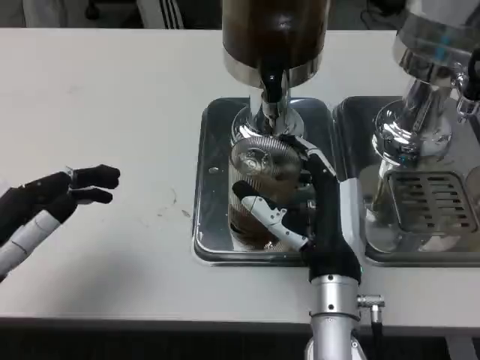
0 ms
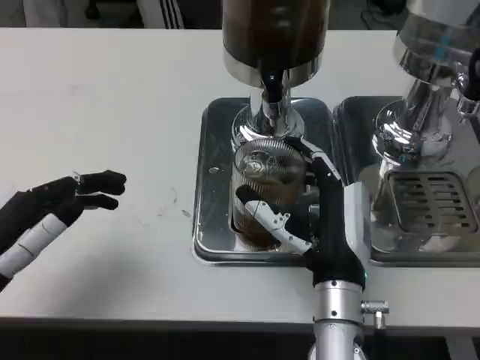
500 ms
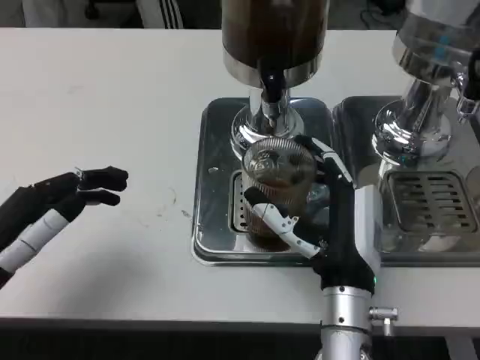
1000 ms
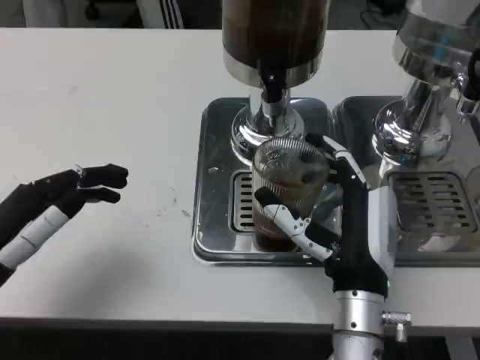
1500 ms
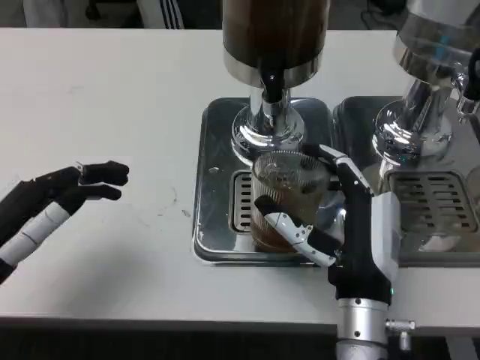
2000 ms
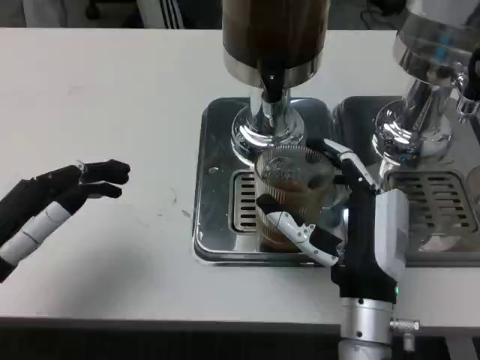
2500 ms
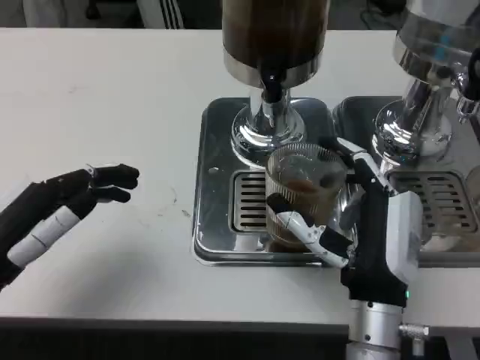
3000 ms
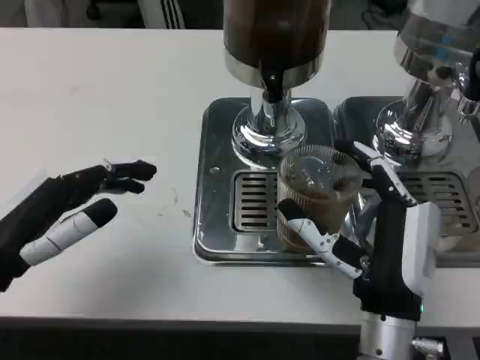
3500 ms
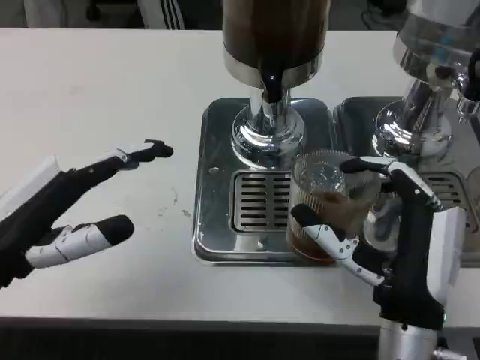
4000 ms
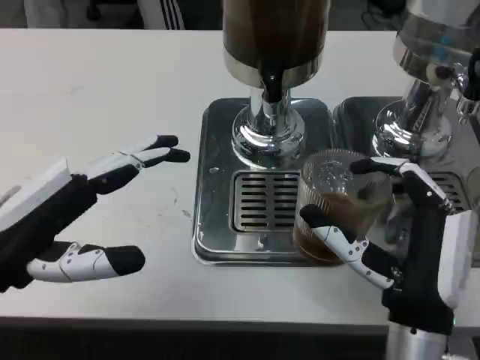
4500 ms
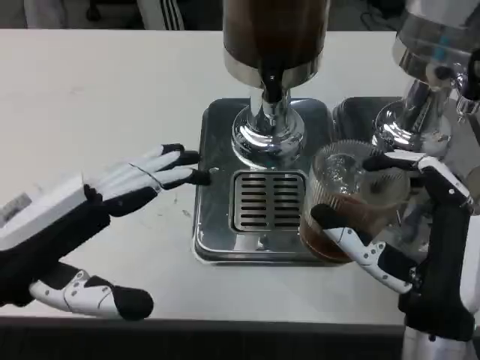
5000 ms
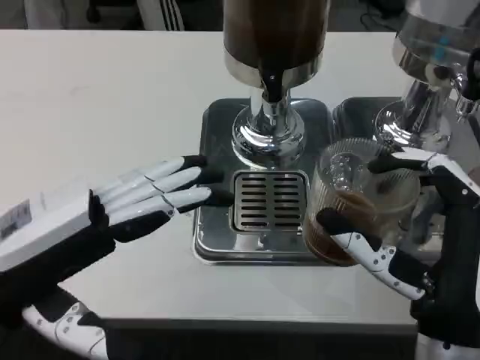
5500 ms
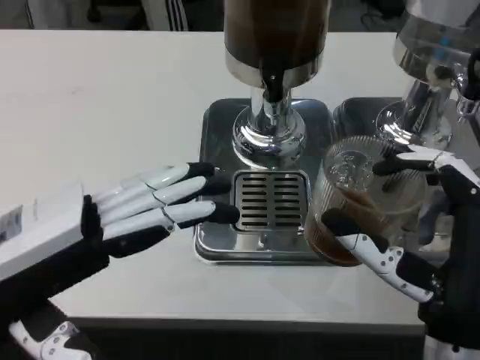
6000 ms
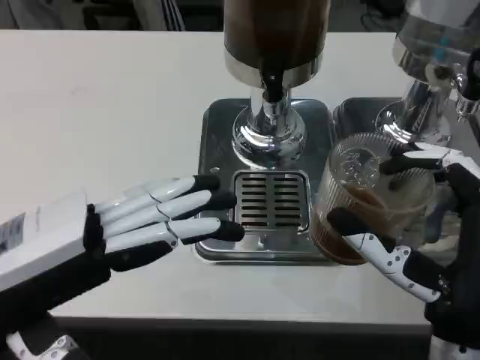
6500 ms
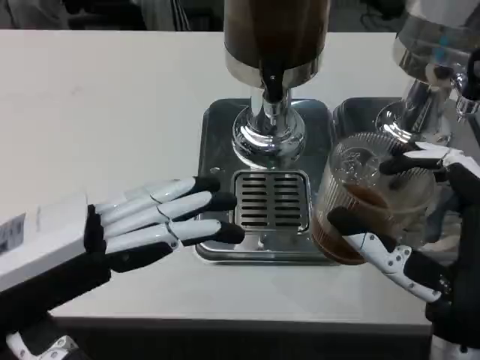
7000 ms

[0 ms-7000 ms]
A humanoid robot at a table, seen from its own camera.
Task of the whole recording: Grasp the cup under the faucet to collect the drink, then remove the cup.
0 ms to 2000 ms: There are only small adjustments of the hands.

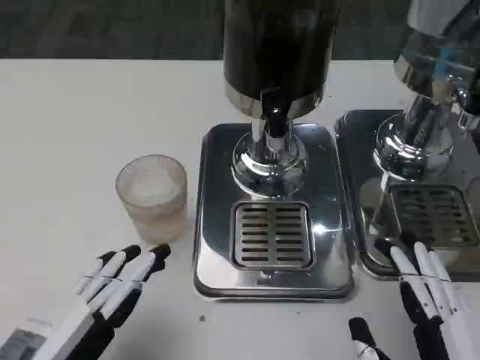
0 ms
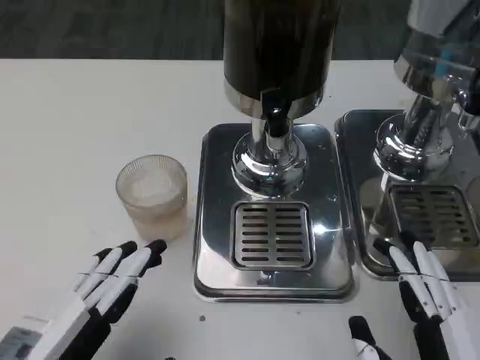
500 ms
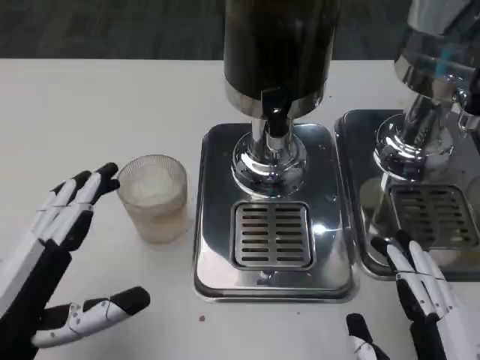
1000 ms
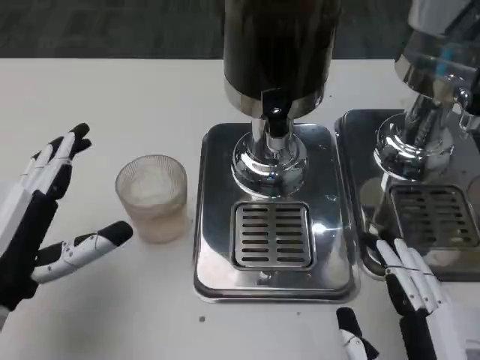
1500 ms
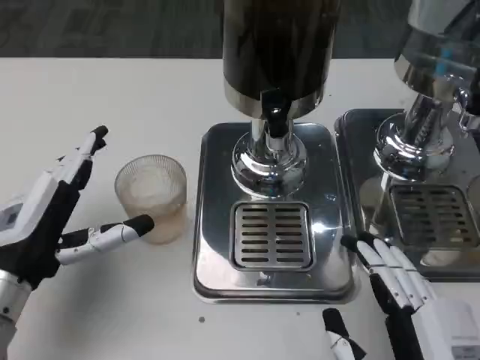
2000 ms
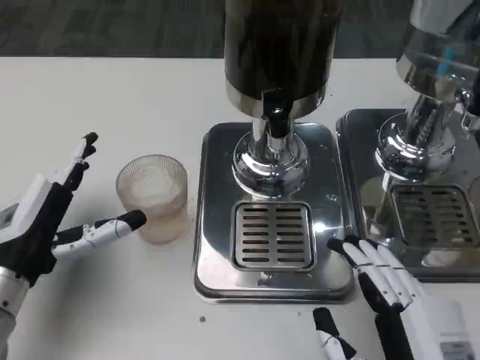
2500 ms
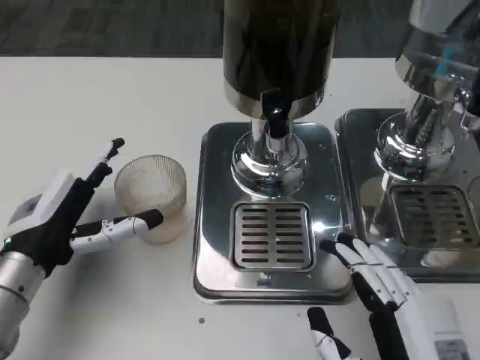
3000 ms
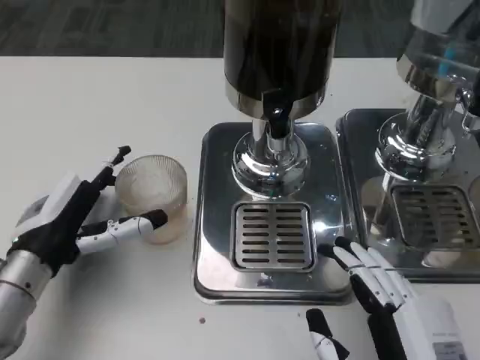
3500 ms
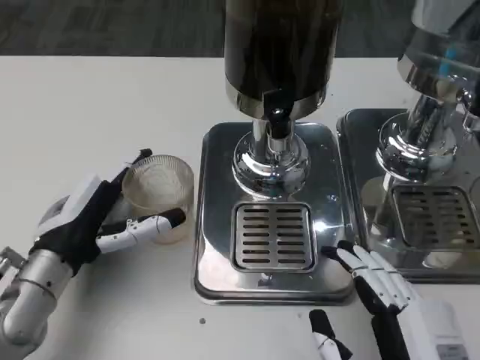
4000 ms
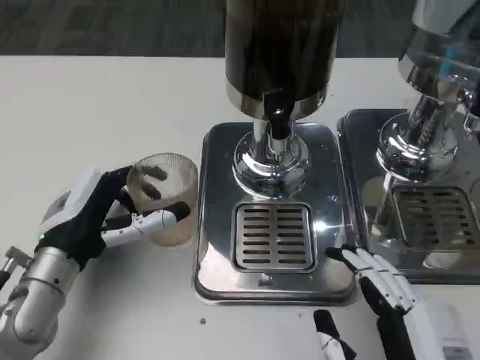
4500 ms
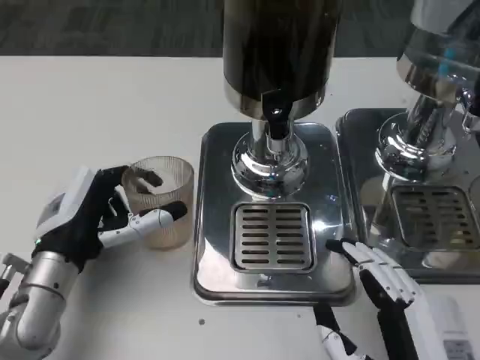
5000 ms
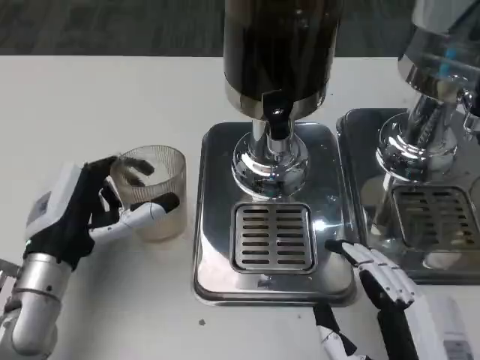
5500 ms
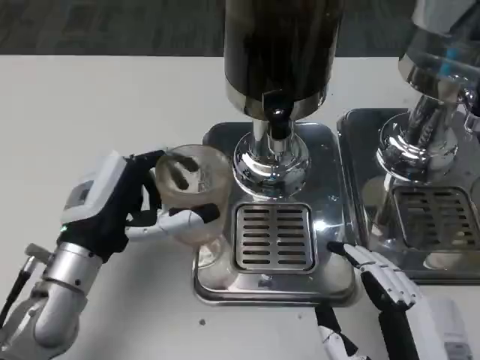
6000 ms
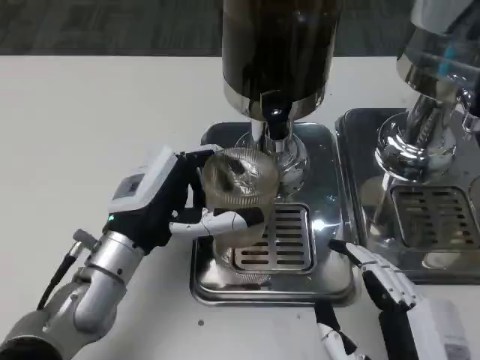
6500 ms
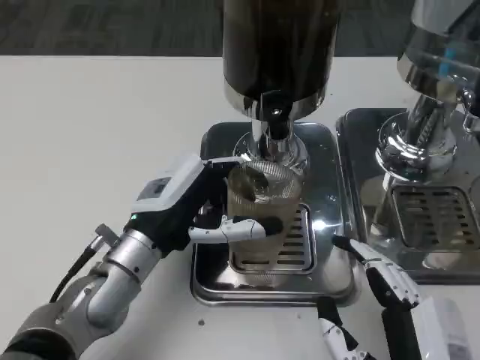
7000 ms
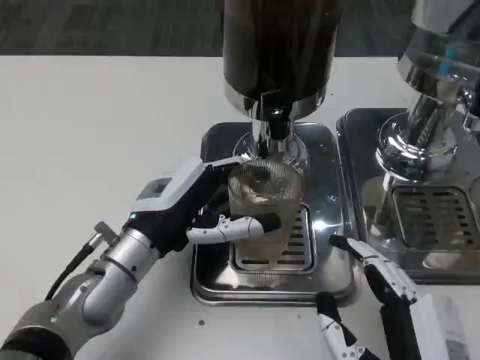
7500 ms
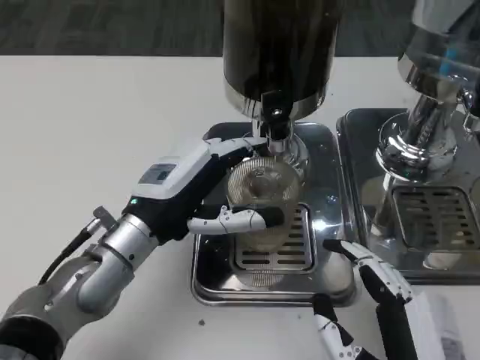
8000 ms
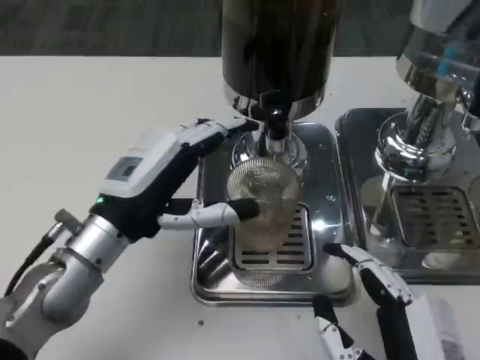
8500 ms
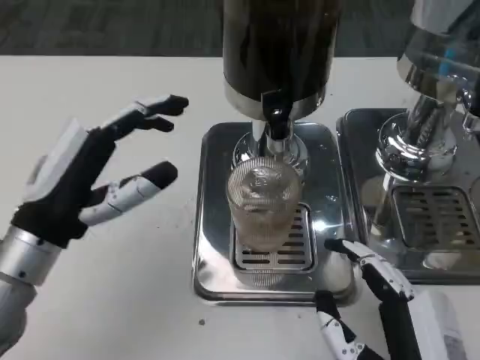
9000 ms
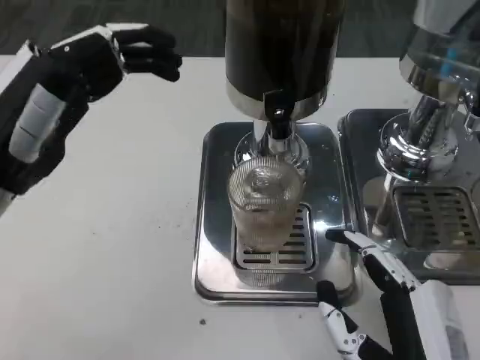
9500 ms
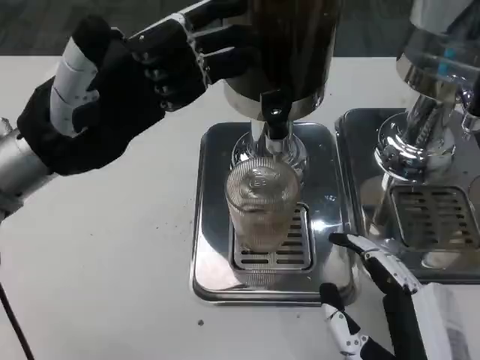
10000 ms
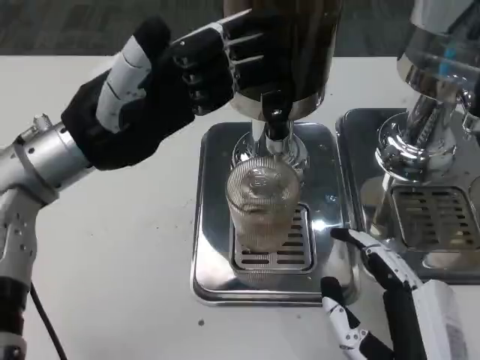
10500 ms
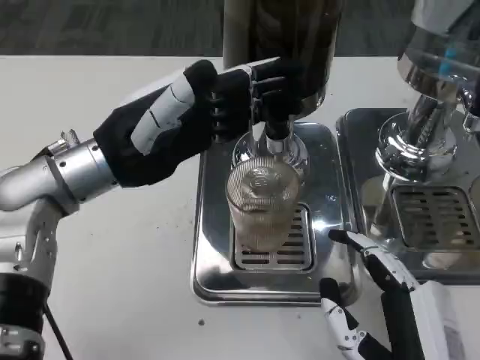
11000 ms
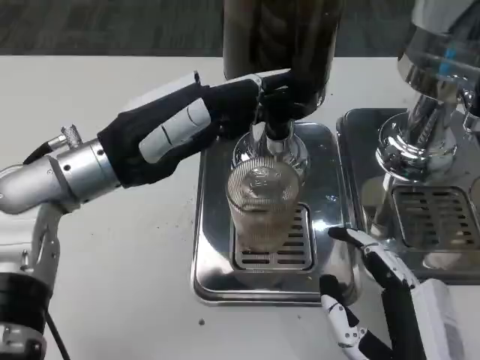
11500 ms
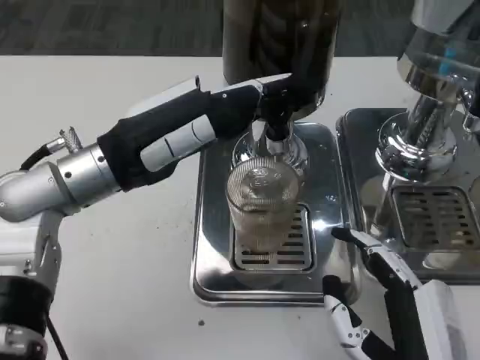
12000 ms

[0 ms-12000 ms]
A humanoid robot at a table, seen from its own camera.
Task of the whole recording: Grasp the cup under the faucet to collect the drink, then remove the cup.
0 ms to 2000 ms: The left hand travels forward by some 15 cm.
6000 ms to 8000 ms: The left hand shifts by some 5 cm.
8000 ms to 10000 ms: The left hand heads upward and to the left, covering roughly 15 cm.
10000 ms to 12000 ms: The left hand changes place by roughly 5 cm.

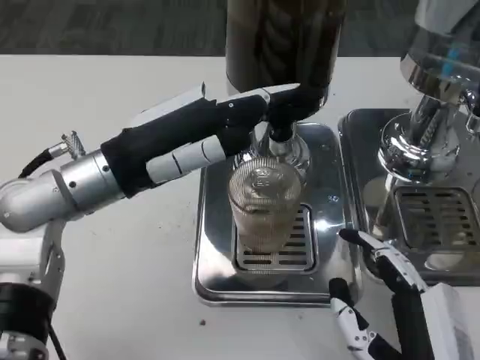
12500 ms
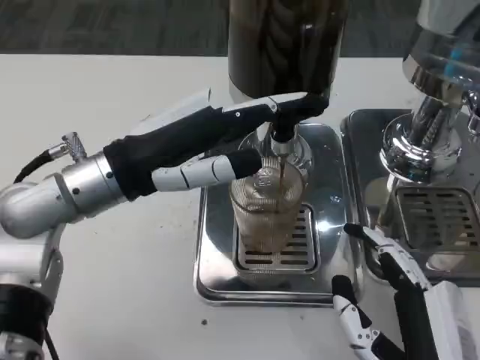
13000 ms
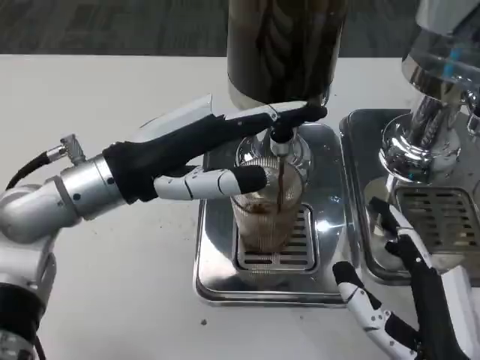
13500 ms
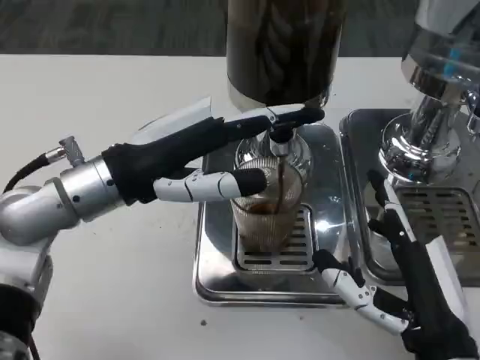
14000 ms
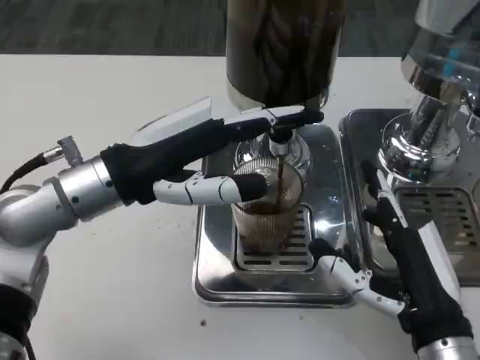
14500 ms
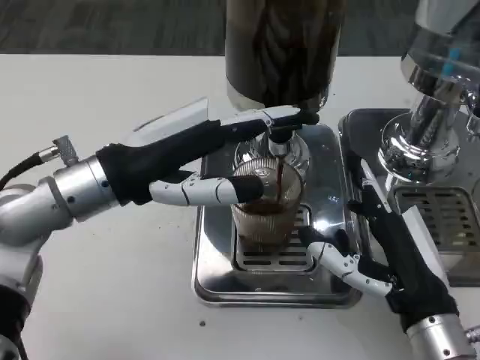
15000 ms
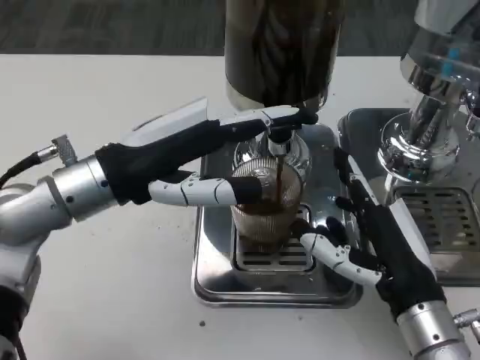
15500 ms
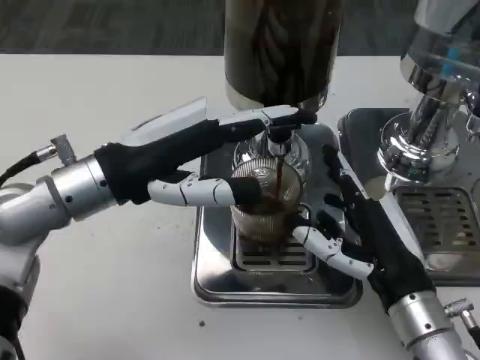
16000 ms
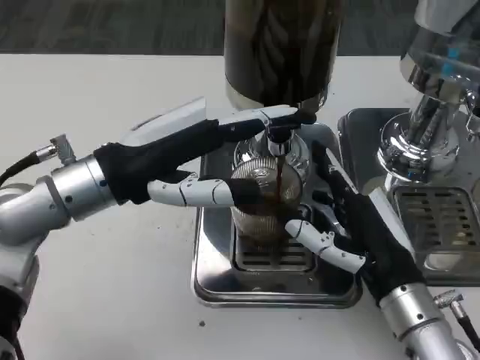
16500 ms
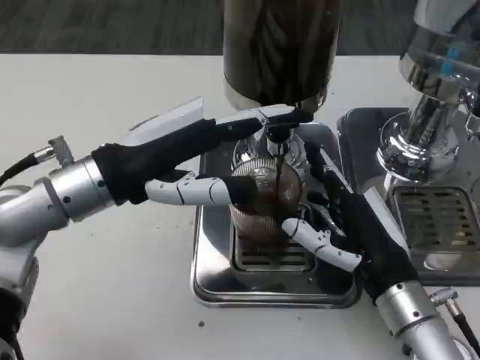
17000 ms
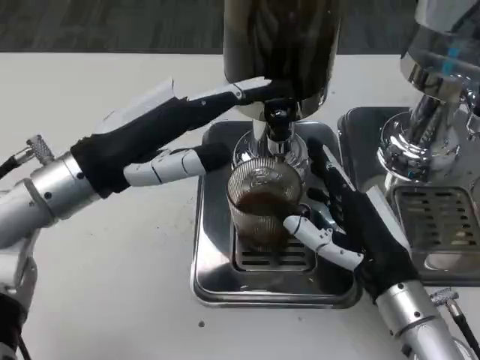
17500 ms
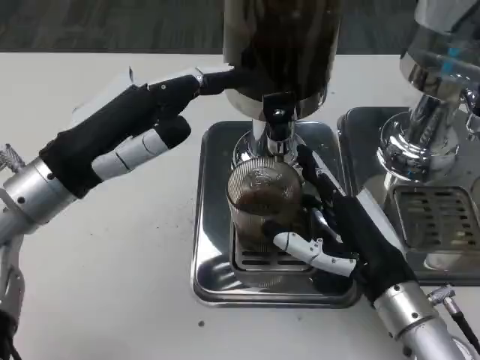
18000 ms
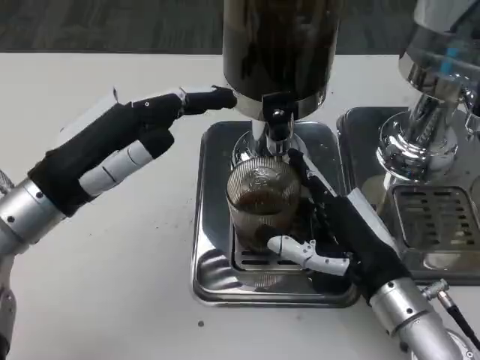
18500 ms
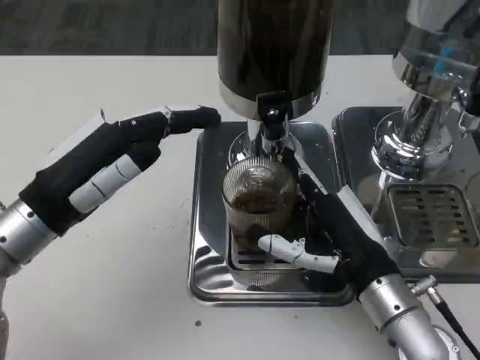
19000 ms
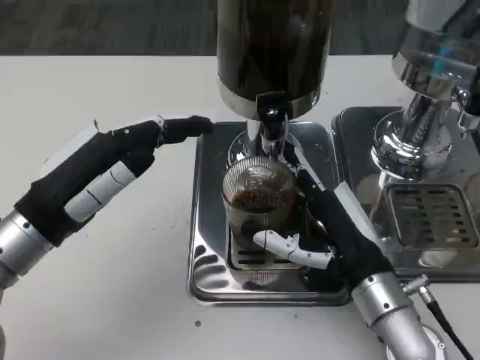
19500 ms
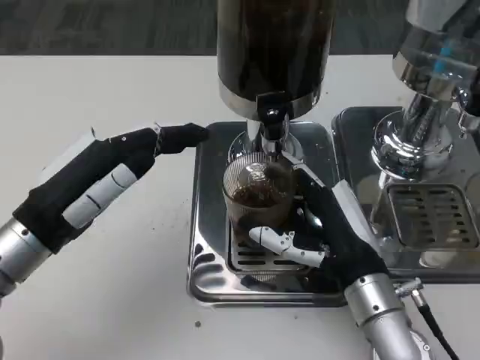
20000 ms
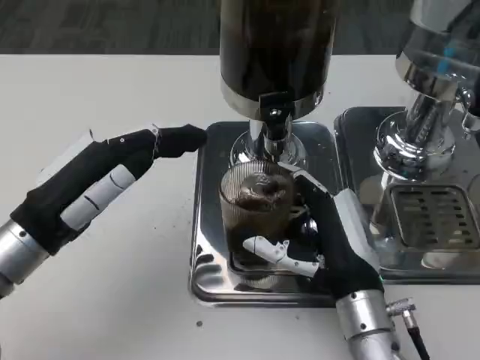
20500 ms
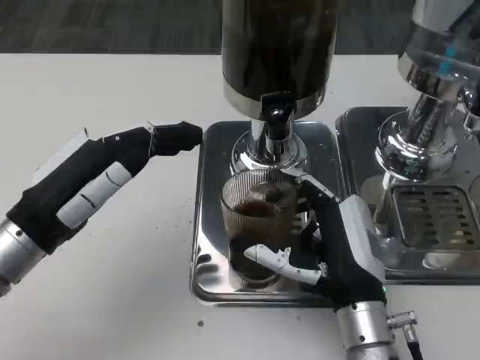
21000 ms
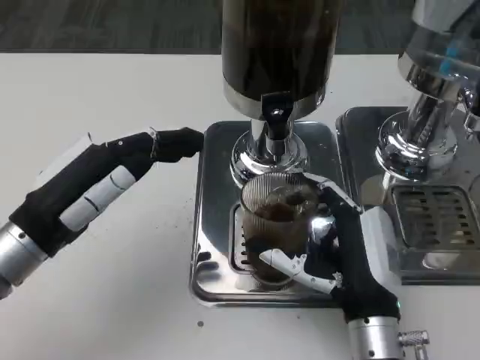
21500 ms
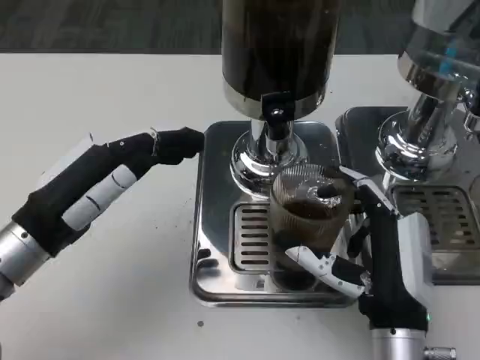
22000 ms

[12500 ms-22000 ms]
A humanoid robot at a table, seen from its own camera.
Task of the whole recording: Grasp the cup under the faucet to collect the drink, then remove the cup.
12500 ms to 14500 ms: The right hand goes some 5 cm forward.
14500 ms to 16500 ms: The right hand shifts about 5 cm forward.
18000 ms to 20000 ms: The left hand shifts by about 5 cm.
20000 ms to 22000 ms: The right hand shifts by approximately 5 cm.
